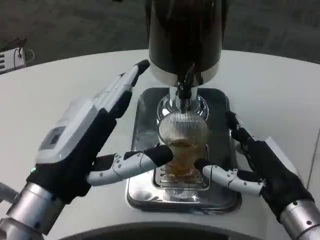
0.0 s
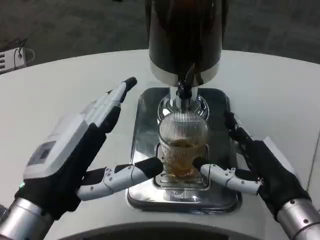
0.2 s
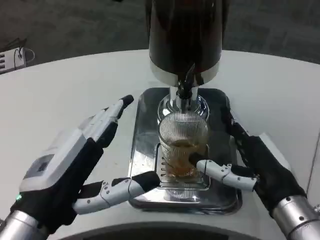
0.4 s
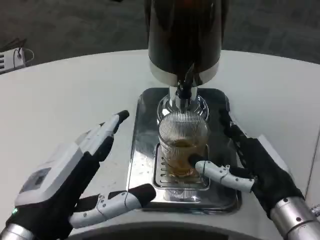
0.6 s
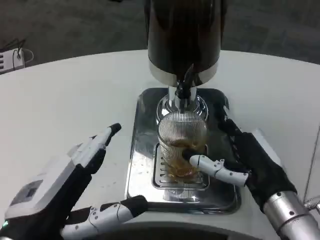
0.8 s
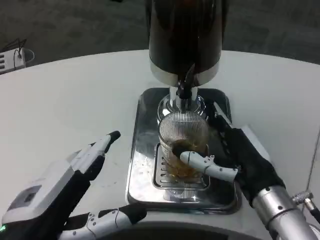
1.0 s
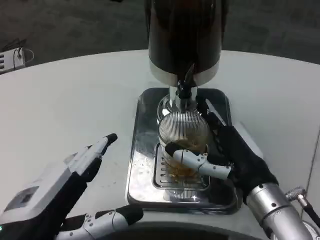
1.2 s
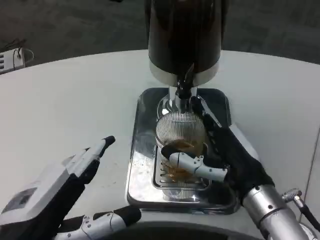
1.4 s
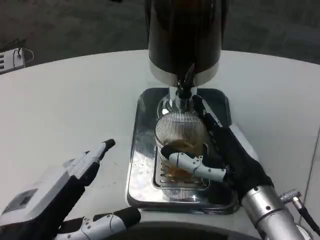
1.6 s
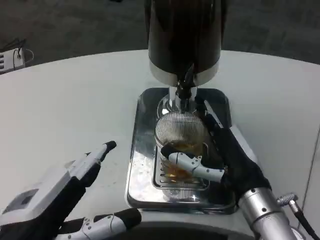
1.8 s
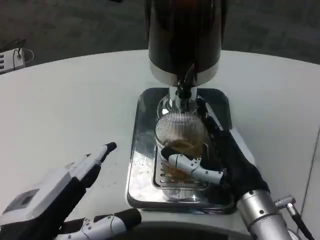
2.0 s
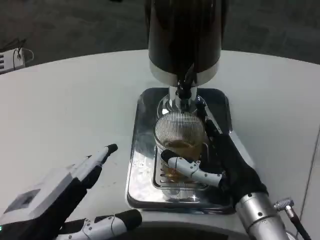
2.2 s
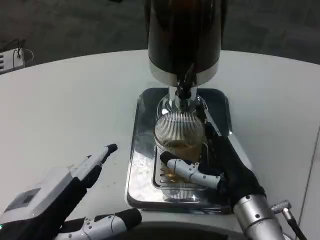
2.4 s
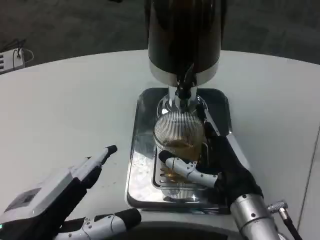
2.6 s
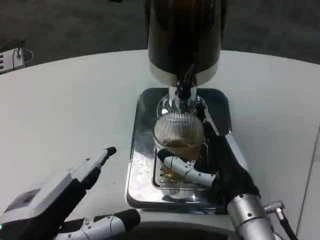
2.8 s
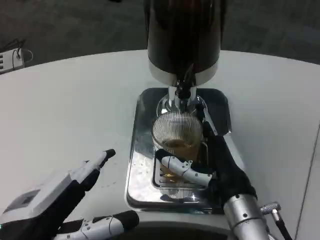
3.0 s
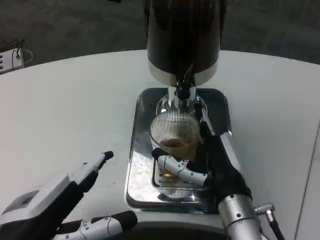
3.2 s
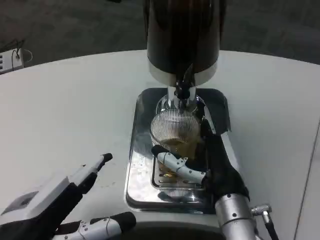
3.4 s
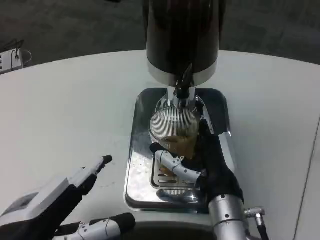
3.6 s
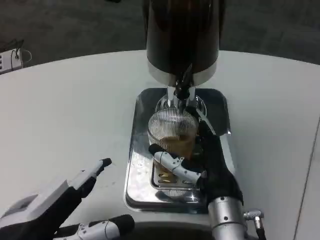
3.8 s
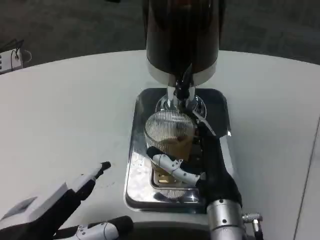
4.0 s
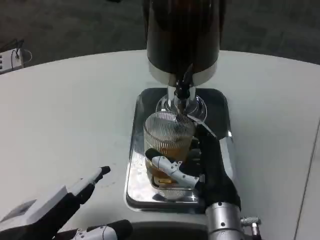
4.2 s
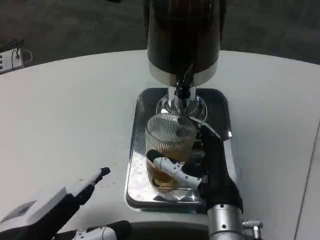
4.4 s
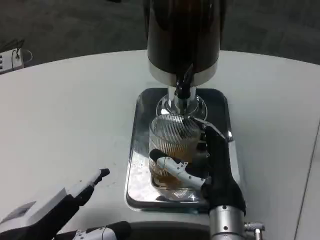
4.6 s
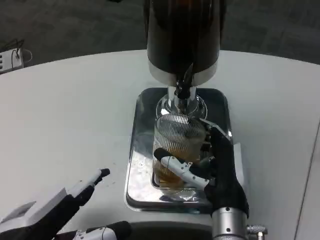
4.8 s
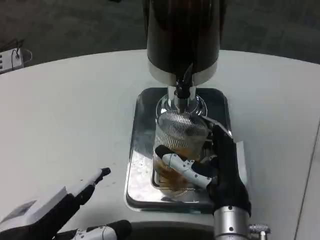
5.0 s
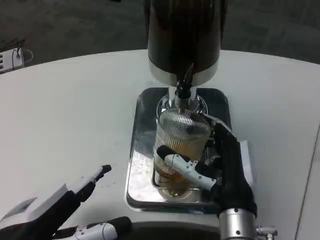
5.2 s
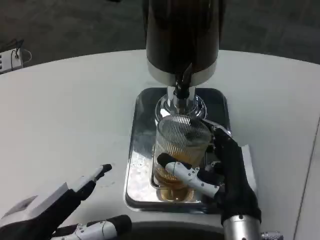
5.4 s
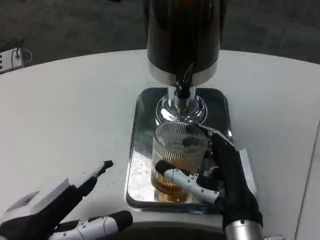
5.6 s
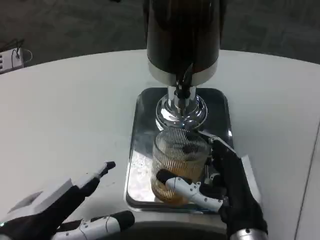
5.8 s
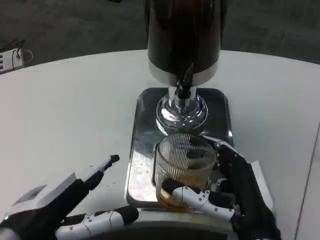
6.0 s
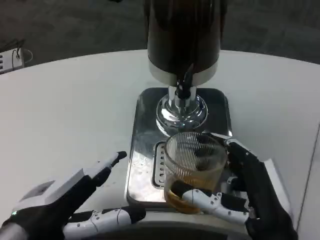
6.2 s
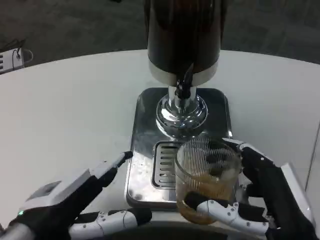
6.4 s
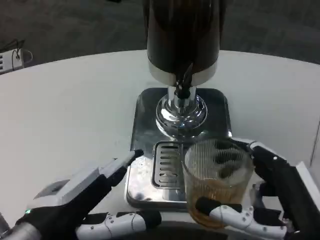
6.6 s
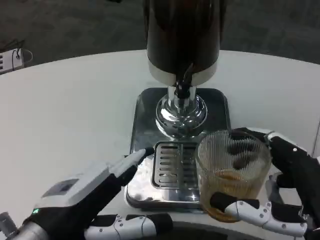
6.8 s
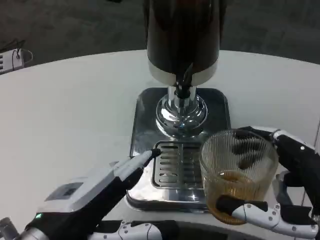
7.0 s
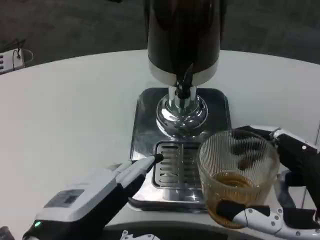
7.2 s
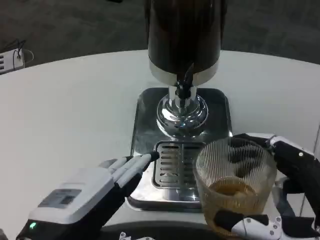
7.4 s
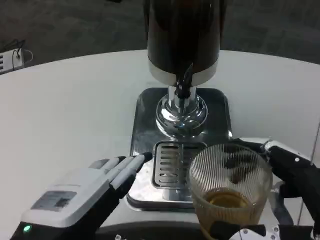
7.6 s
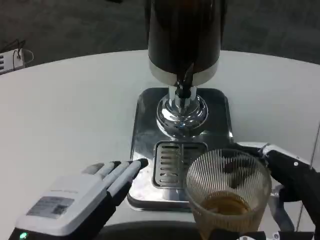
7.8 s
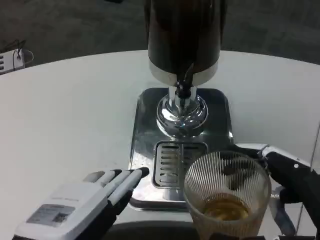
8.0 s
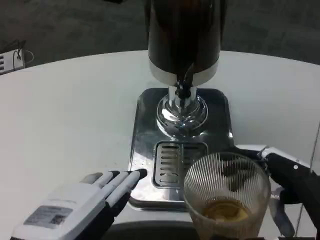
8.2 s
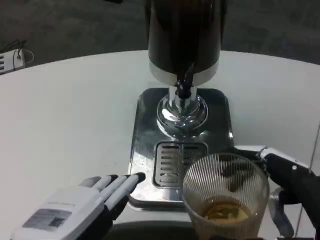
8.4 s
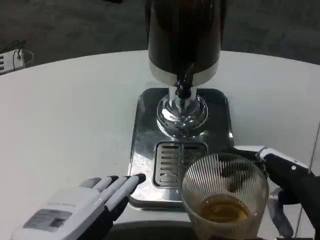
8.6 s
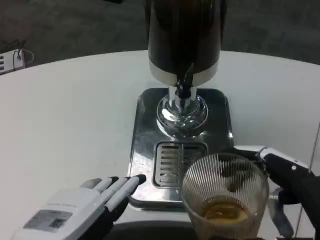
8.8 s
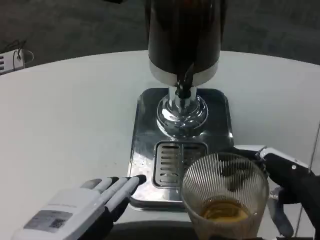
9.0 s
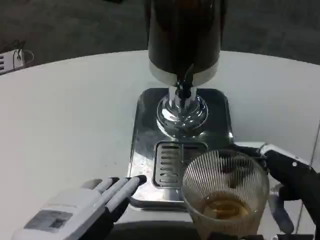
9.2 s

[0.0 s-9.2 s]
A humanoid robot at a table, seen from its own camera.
Task of the whole recording: Grasp the cup under the faucet to collect the drink, then remove the cup.
0.0 to 1.6 s: The left hand is displaced backward by roughly 5 cm.
1.6 to 3.0 s: The hands make only small movements.
3.0 to 4.6 s: The hands stay close to where they were, moving slightly.
4.6 to 6.2 s: The right hand goes roughly 10 cm backward and to the right.
6.2 to 7.6 s: The left hand changes place by about 5 cm. Meanwhile the right hand shifts some 10 cm backward and to the right.
7.6 to 9.2 s: The hands move only a little.

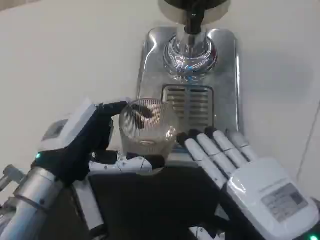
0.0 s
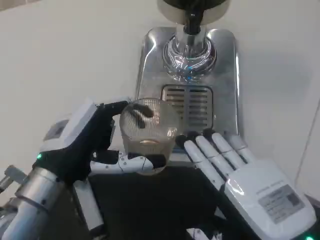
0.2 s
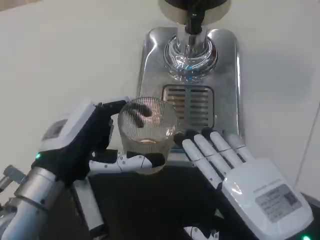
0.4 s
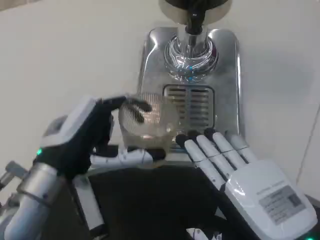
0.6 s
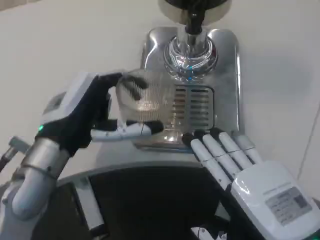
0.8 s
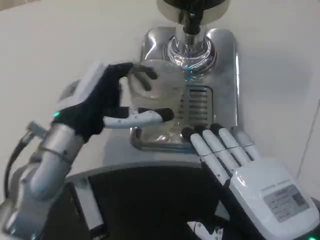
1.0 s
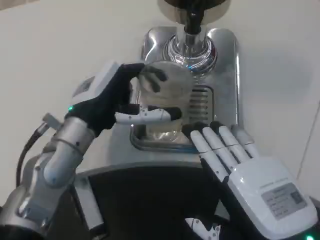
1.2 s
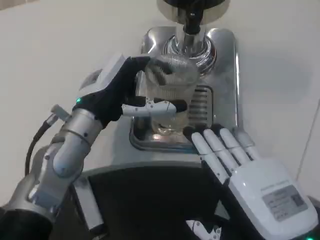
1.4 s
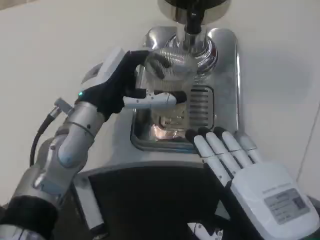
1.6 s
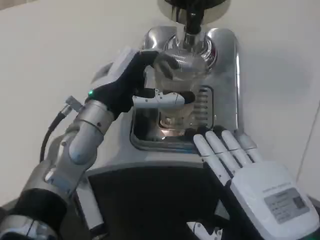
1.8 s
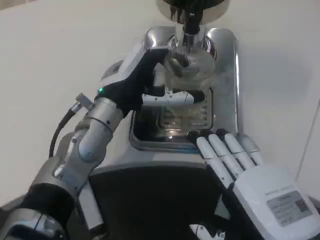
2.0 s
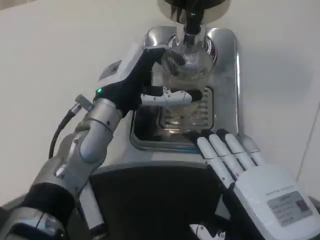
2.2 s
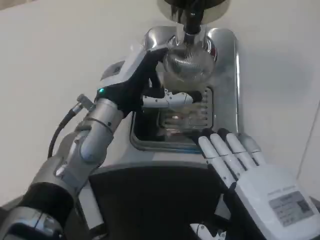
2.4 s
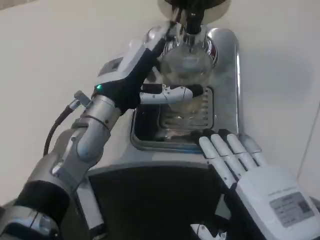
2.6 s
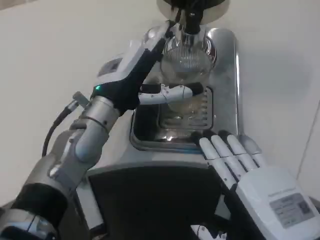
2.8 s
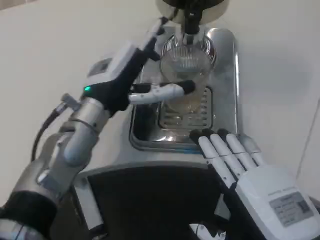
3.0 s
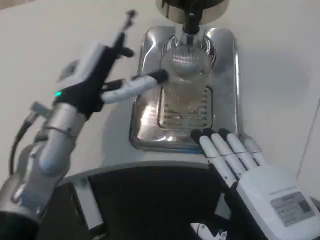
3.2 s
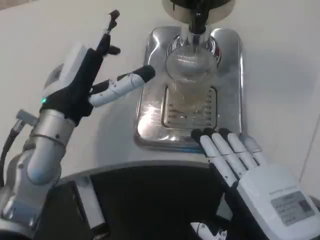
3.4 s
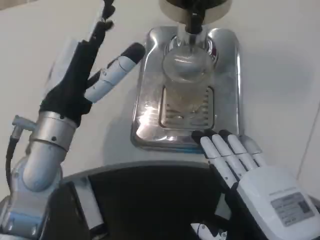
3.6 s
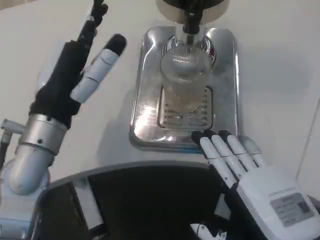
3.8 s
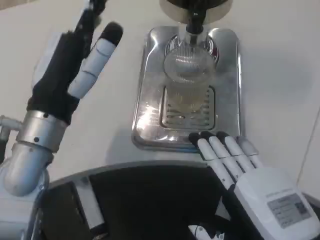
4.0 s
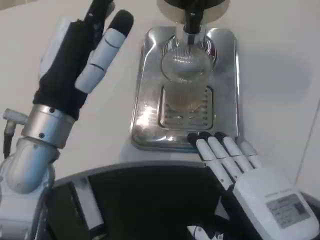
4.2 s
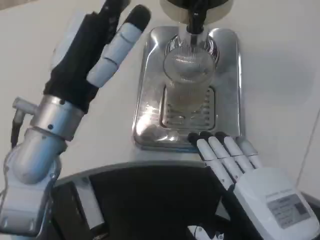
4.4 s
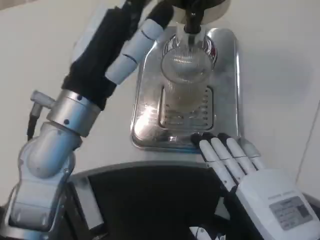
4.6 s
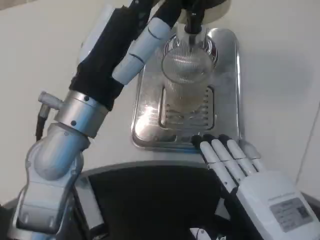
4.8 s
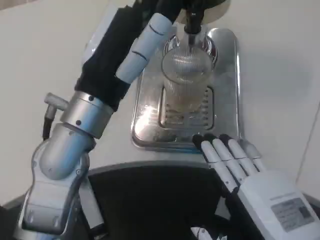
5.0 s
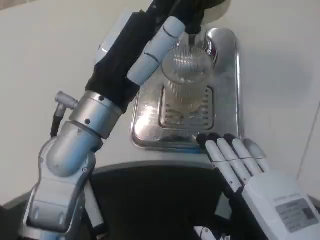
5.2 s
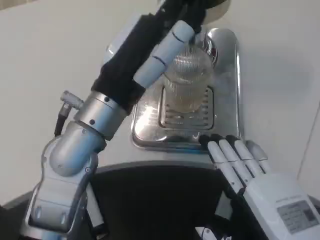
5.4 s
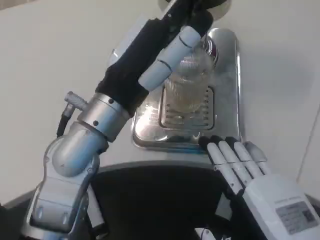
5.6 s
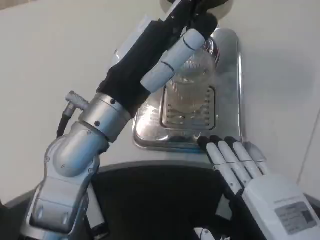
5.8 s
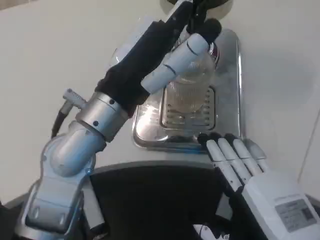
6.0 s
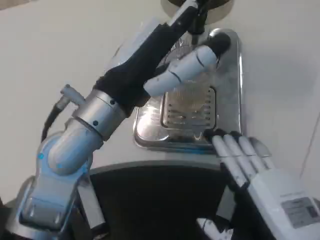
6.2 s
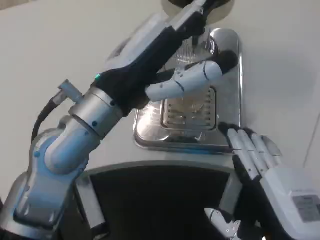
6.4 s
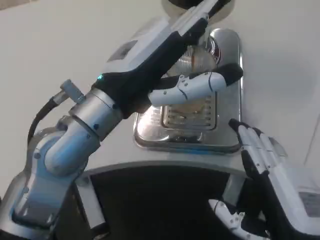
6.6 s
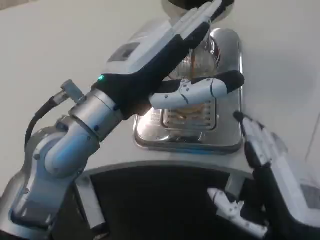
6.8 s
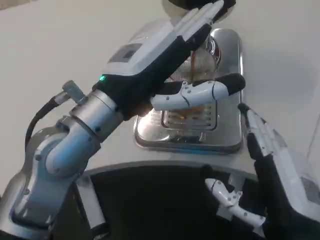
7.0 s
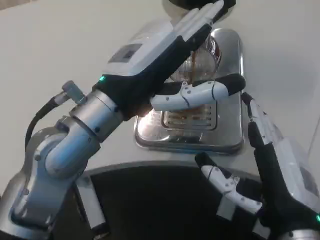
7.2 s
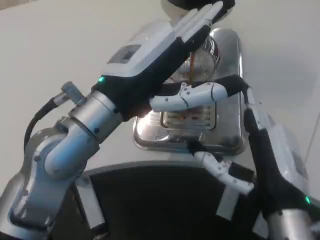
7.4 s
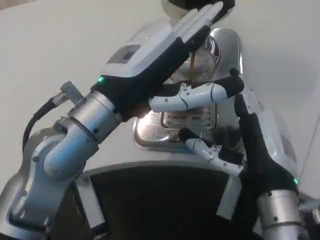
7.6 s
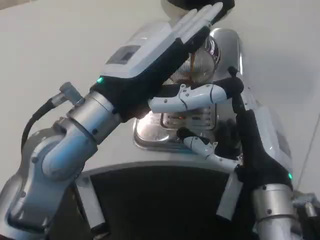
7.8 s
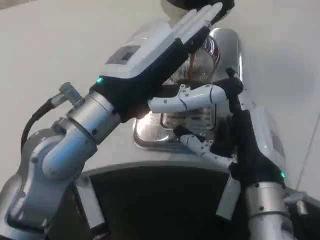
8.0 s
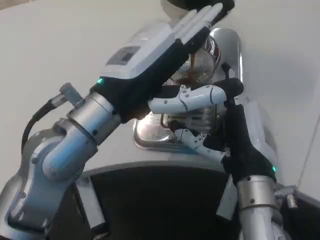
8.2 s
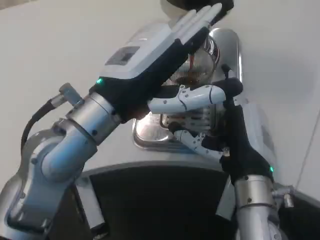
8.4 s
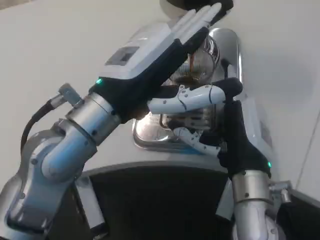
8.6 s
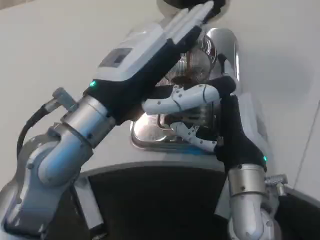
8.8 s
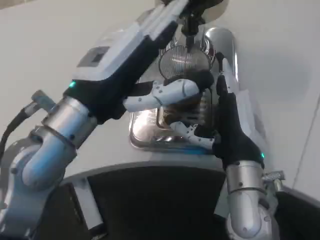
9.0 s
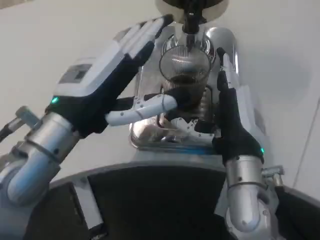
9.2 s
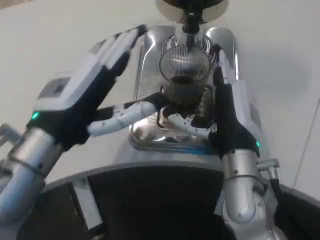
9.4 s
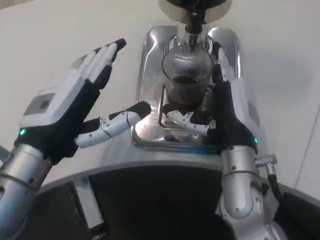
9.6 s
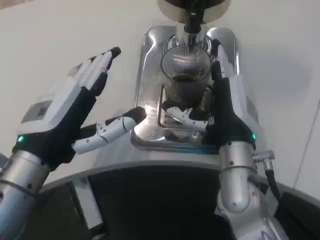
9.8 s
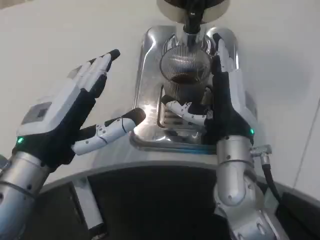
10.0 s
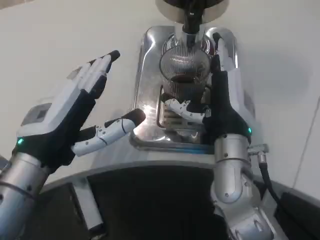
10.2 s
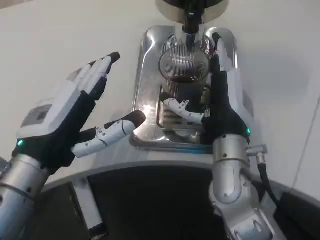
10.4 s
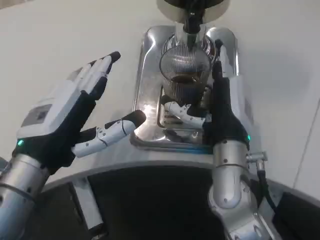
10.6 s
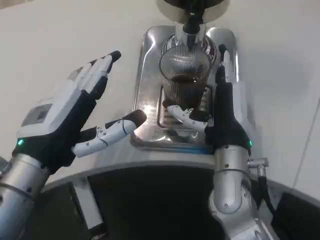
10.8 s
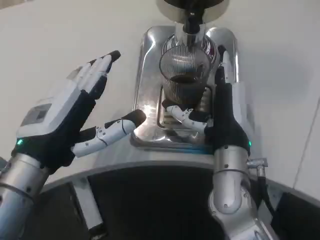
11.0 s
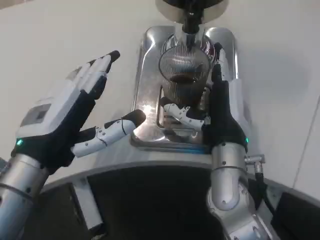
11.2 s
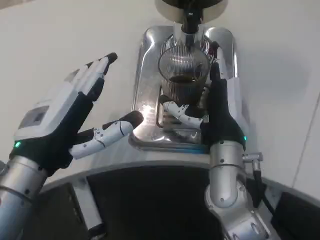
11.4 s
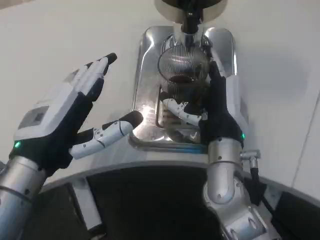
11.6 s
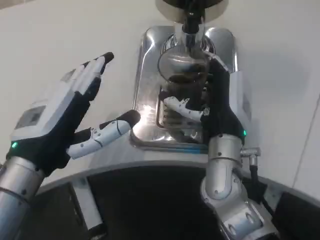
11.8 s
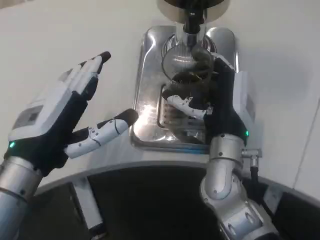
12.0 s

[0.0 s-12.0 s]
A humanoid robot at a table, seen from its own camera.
Task of the whole recording: Grasp the cup under the faucet to collect the drink, then remove the cup.
0.0 to 1.6 s: The left hand shifts roughly 10 cm forward.
1.6 to 3.0 s: The hands move only a little.
3.0 to 4.4 s: The left hand shifts roughly 5 cm backward.
6.0 to 7.6 s: The right hand goes roughly 10 cm forward.
7.6 to 9.0 s: The right hand changes place by roughly 5 cm.
9.0 to 10.4 s: The left hand heads downward, covering roughly 5 cm.
10.4 to 12.0 s: There are only small adjustments of the hands.

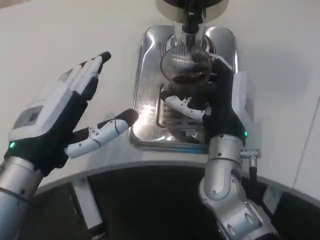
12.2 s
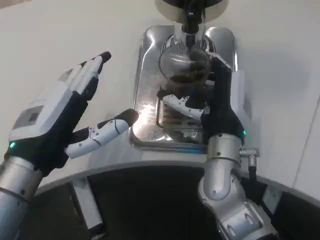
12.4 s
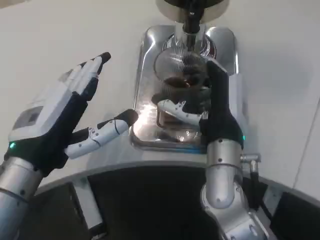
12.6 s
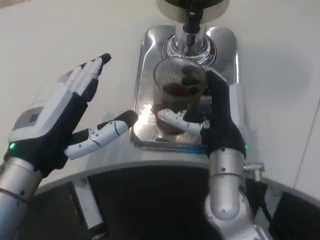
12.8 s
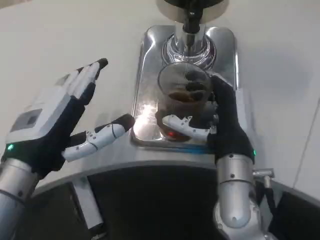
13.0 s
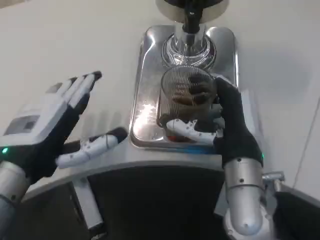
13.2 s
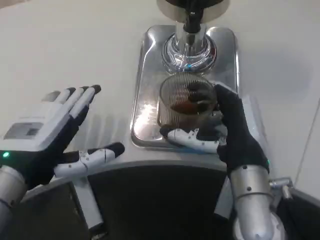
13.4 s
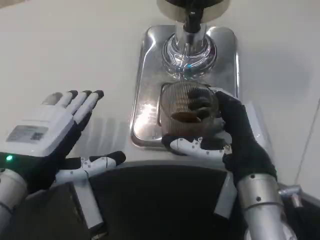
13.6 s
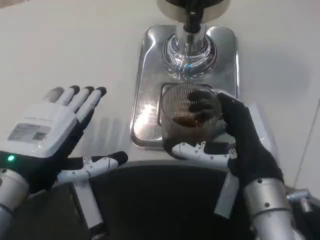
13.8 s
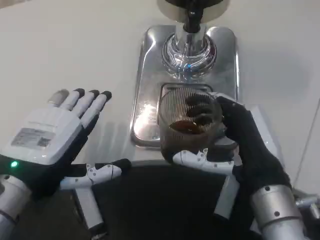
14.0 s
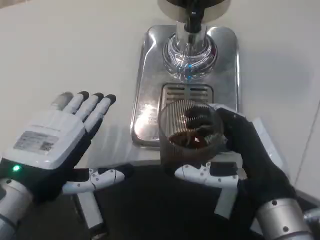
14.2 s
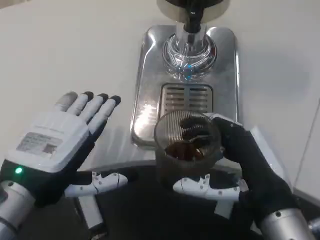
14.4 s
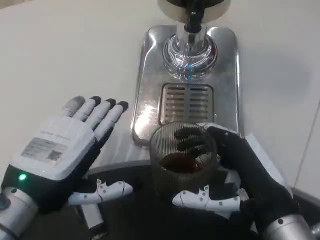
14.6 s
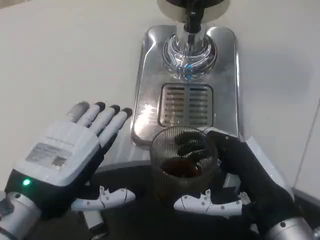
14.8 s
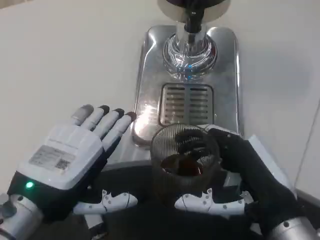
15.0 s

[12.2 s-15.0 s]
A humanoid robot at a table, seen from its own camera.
Task of the whole recording: Grasp the cup under the faucet to collect the drink, then remove the cup.
12.2 to 13.6 s: The right hand goes roughly 10 cm backward.
13.6 to 15.0 s: The right hand goes roughly 5 cm backward.
